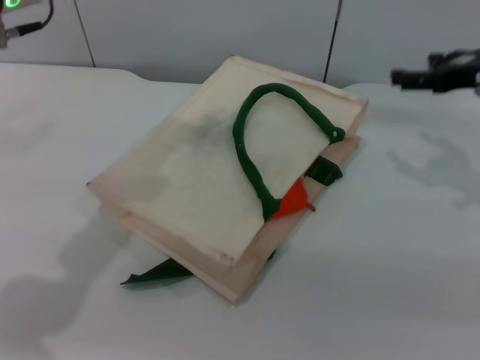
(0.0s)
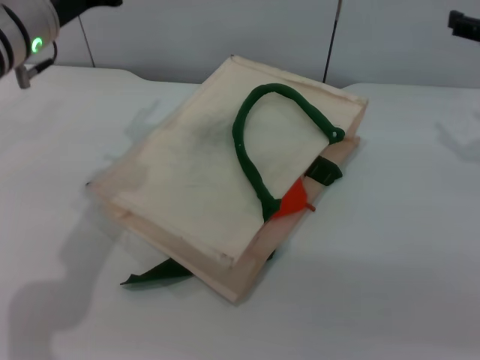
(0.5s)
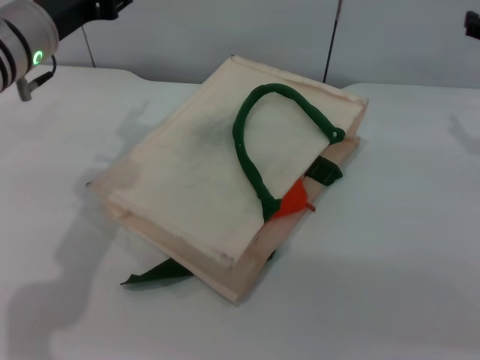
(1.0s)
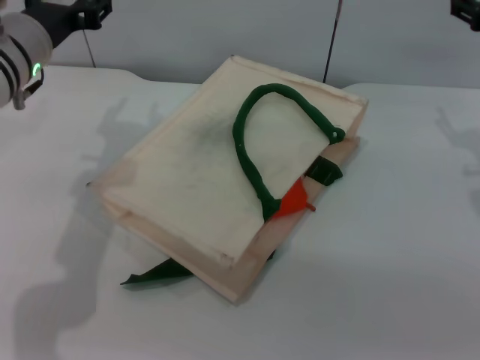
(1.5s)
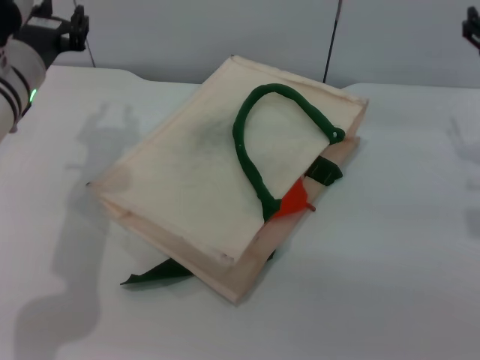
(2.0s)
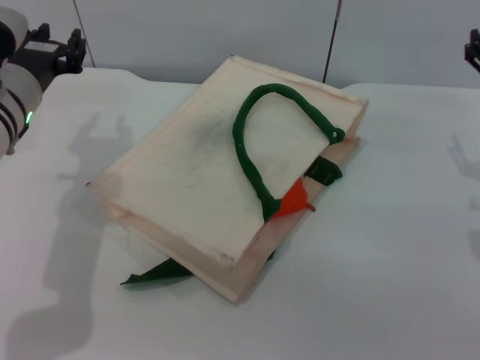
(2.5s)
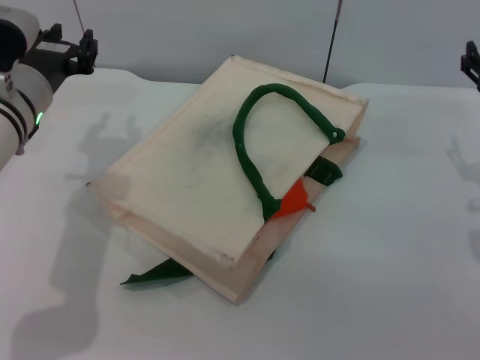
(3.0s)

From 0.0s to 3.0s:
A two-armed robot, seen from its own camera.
Task of the whole recording: pick up the orange and peach from the table and place it in the white handbag.
From 0.0s to 1.5s: The left gripper travels downward by some 10 cm.
From 1.5s to 3.0s: The right gripper goes about 5 cm backward.

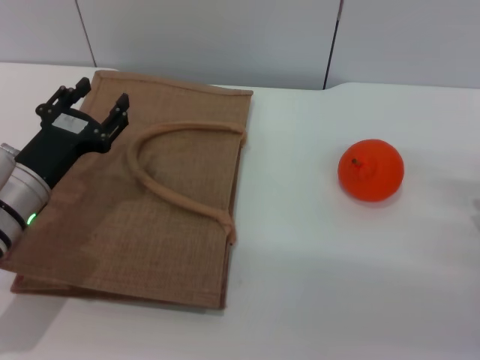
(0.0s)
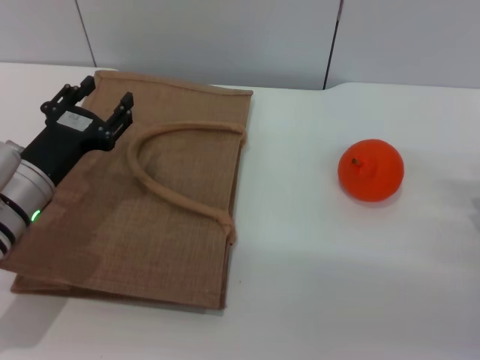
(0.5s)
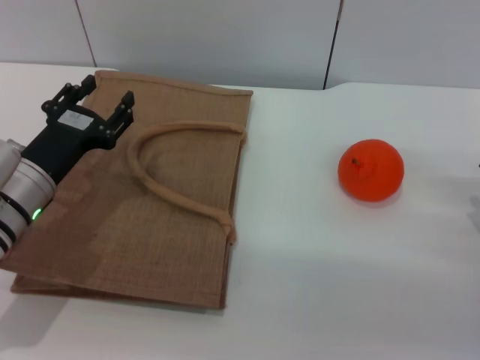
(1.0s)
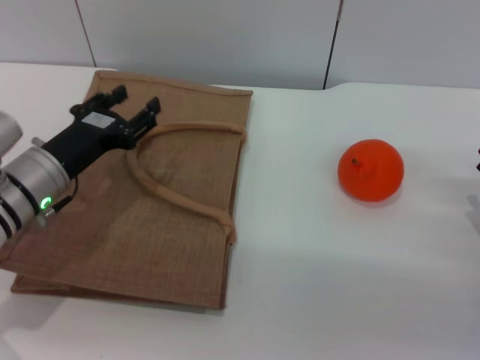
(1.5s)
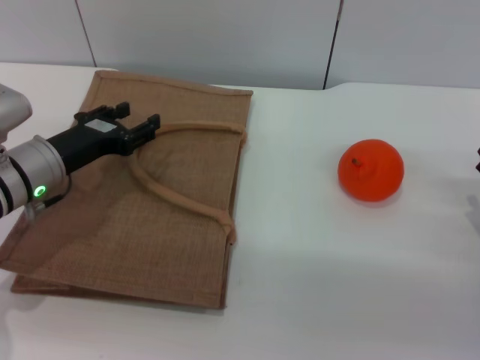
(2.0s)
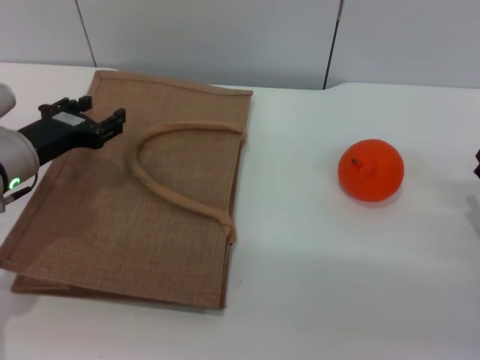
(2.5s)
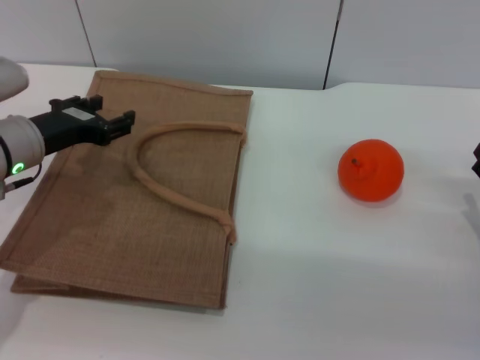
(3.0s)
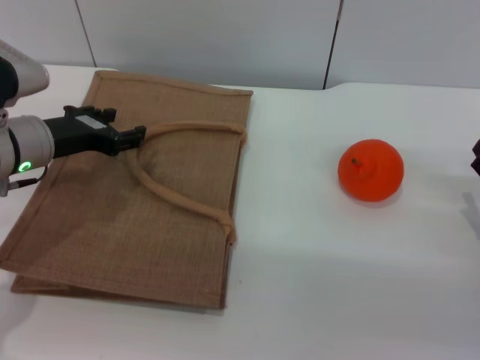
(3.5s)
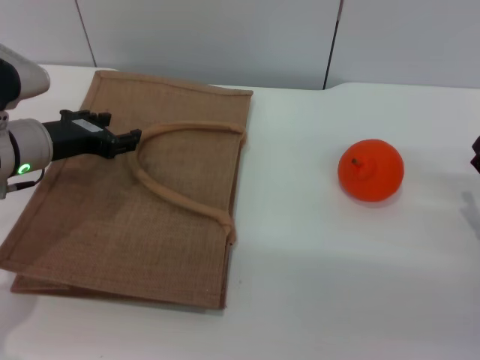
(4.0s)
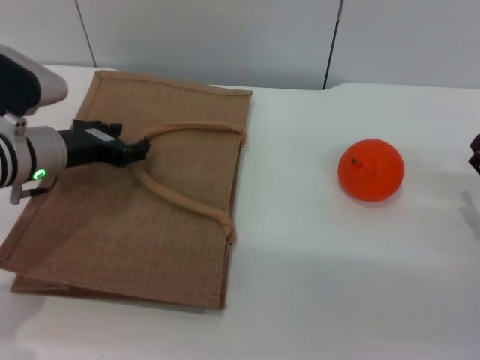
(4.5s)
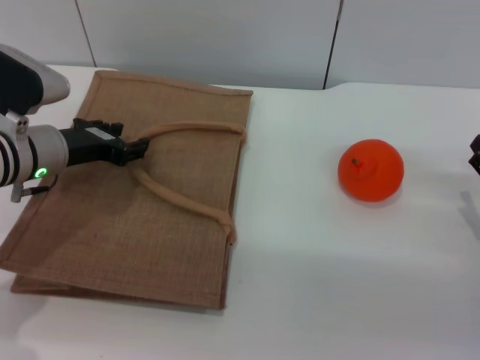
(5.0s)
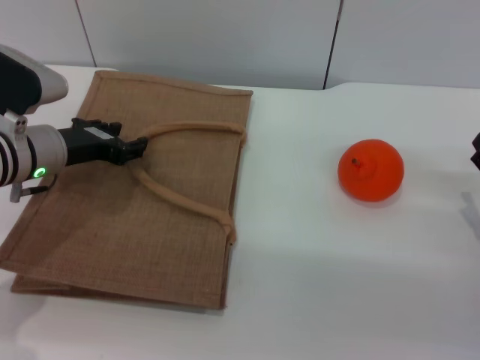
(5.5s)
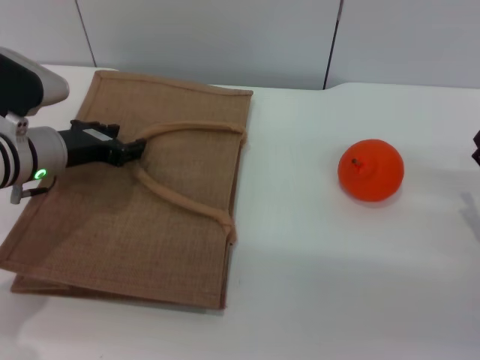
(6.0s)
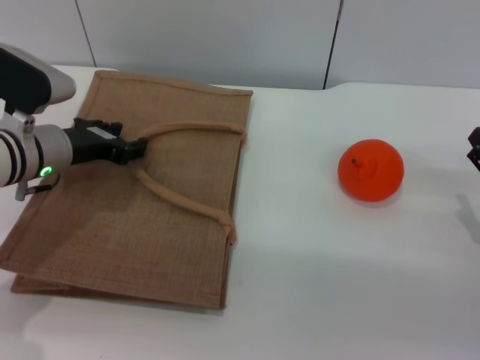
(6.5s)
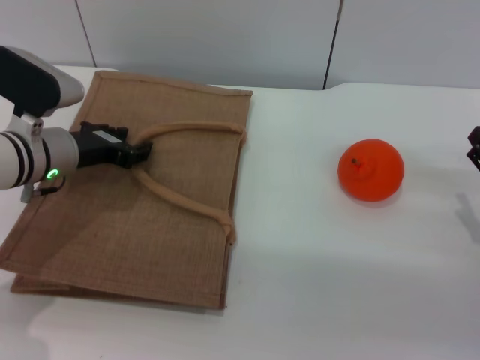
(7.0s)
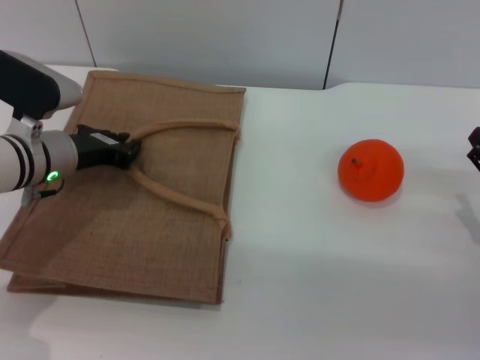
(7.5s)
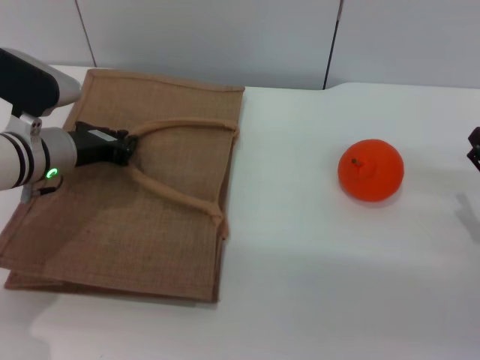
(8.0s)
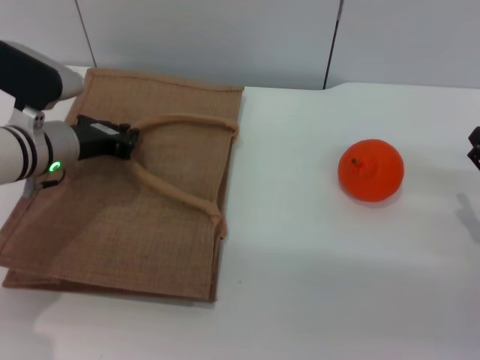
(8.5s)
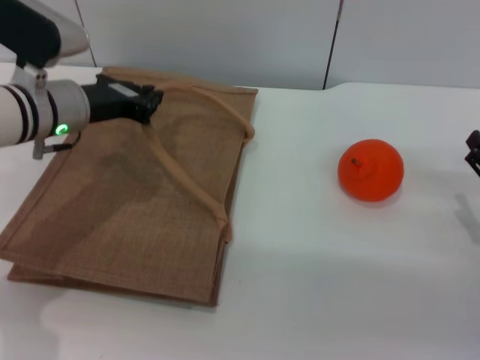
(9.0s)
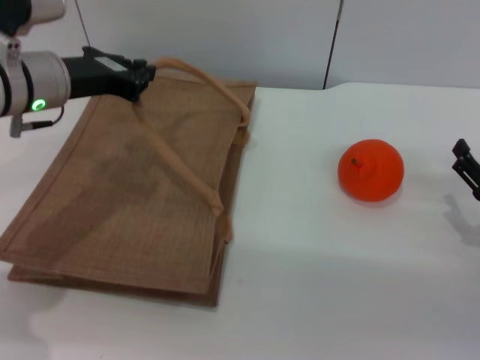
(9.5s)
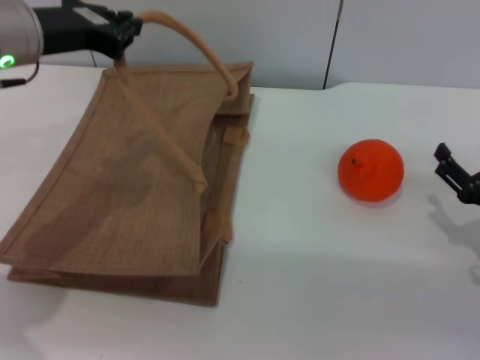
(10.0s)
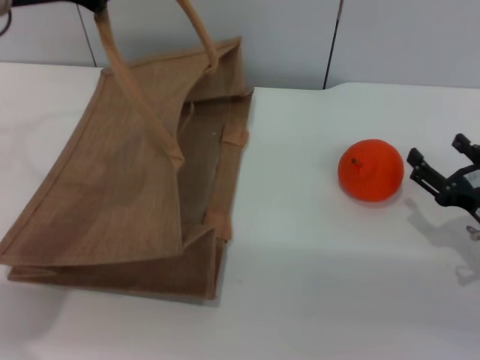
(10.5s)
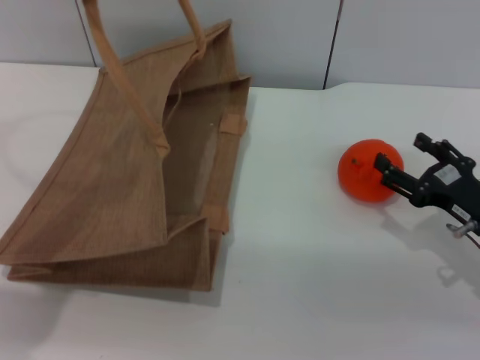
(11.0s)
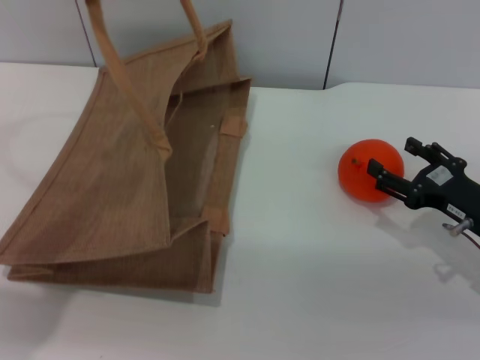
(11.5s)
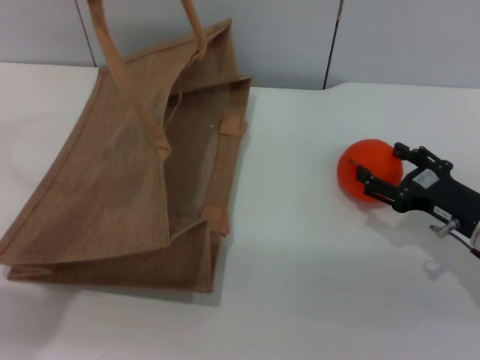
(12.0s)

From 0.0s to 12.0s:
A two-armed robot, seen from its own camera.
Task of the whole recording: pick up the orange from the table and place it in the brown handbag.
Step, from 0.0s to 10.5s: Lift the woven bag with the left gripper to open it.
From 2.0s to 4.0s: The grippers stay close to where they were, moving slightly.
From 4.0s to 6.0s: There are only small adjustments of the grippers.
From 6.0s to 8.0s: The left gripper closes up.
From 8.0s to 10.0s: The left gripper shifts roughly 15 cm upward.
From 10.0s to 12.0s: The left gripper travels upward by some 10 cm.

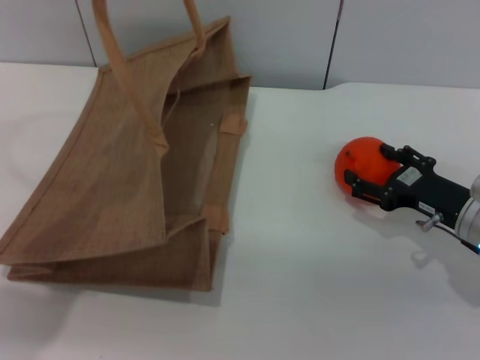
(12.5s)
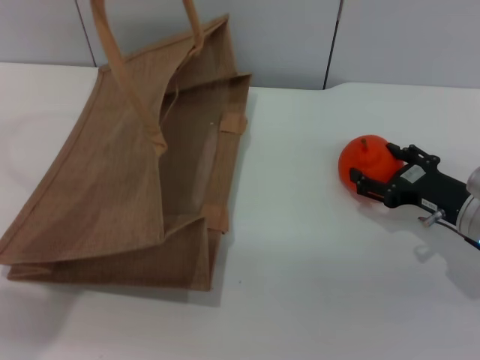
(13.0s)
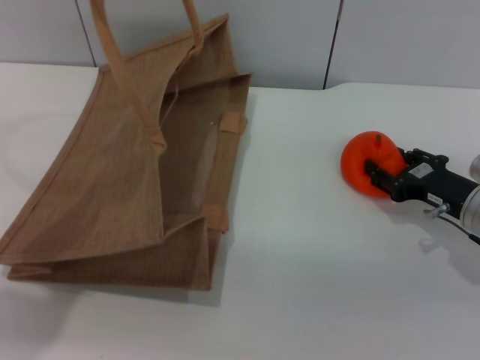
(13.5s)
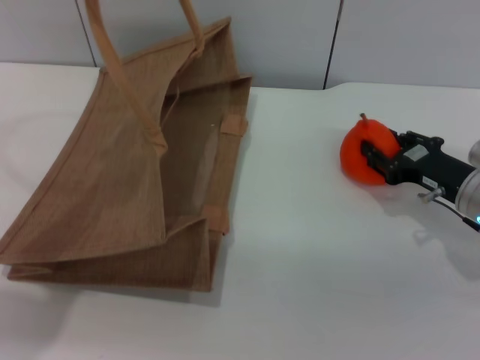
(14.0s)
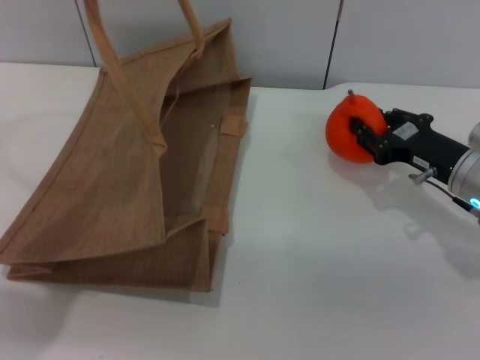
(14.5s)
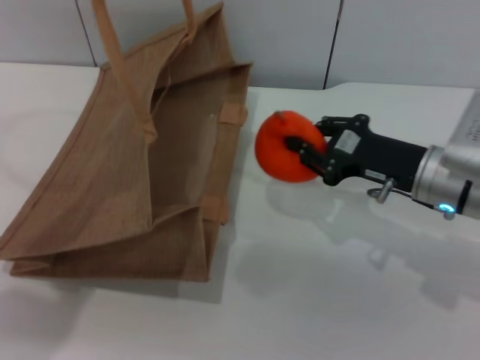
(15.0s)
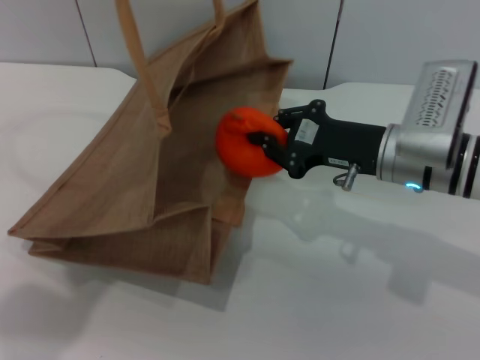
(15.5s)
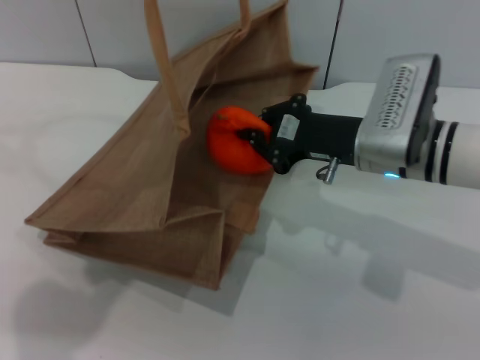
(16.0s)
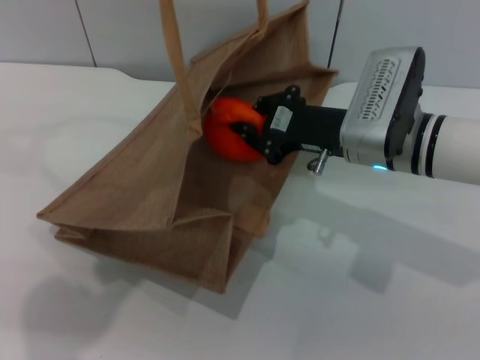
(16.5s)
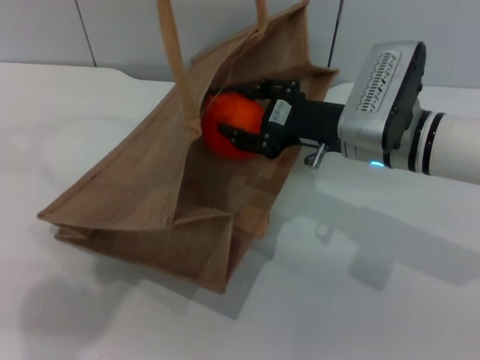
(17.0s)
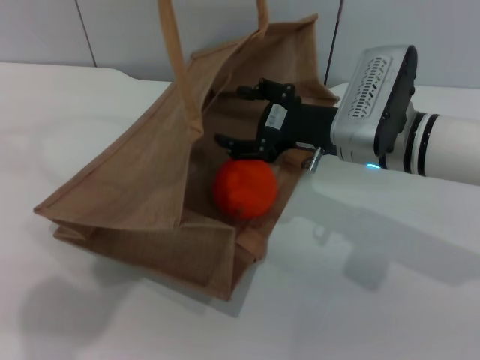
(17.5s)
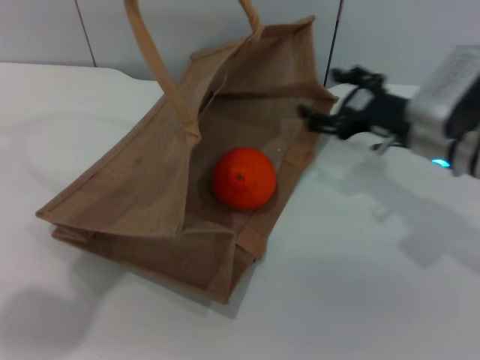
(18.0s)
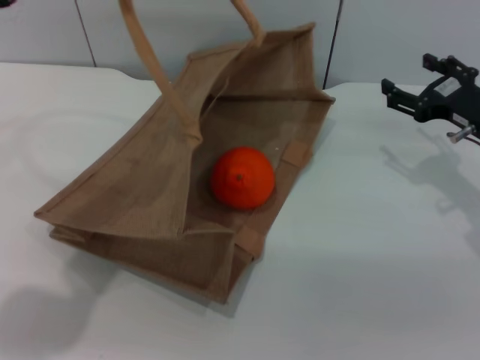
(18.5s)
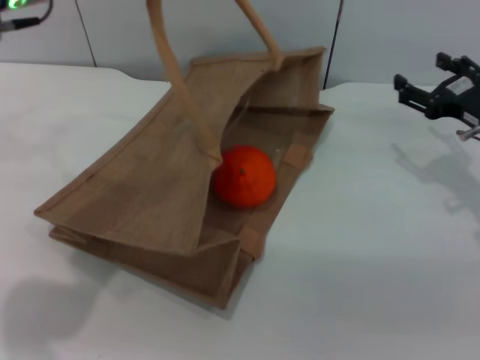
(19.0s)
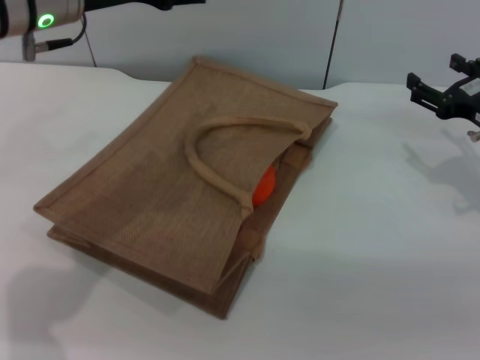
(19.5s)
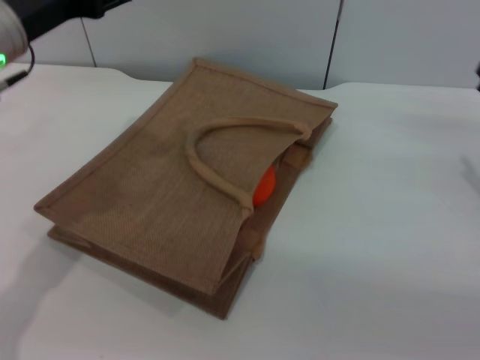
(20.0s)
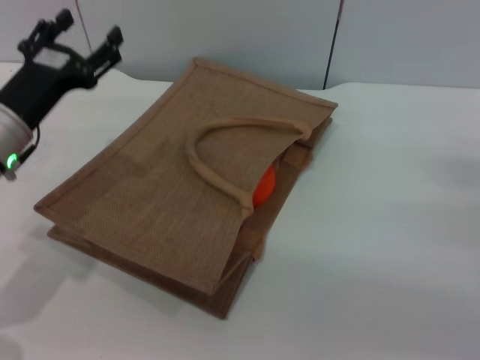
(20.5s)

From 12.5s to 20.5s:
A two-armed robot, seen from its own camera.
Task of the whole recording: pick up the orange from the table and place it in the brown handbag.
Step, from 12.5s to 14.5s: Pick up the orange with the right gripper.
Step, from 15.0s to 17.0s: Place the orange into the woven bag with the right gripper.
Step, from 17.5s to 19.0s: Lower the woven bag with the left gripper to close it.
From 12.5s to 14.5s: The right gripper closes up.
From 14.5s to 16.5s: The right gripper is displaced to the left by some 10 cm, and closes up. Meanwhile the left gripper goes roughly 5 cm to the right.
From 16.5s to 18.5s: The right gripper is displaced to the right by about 15 cm, and opens its fingers.
From 18.5s to 20.5s: The right gripper heads backward, to the right and downward, covering some 15 cm, while the left gripper is displaced downward by about 20 cm, and opens up.
